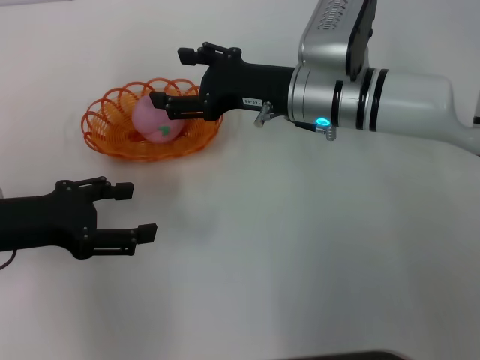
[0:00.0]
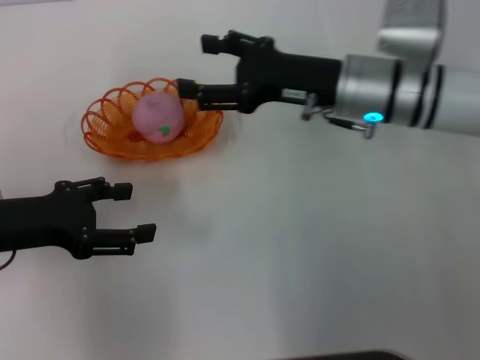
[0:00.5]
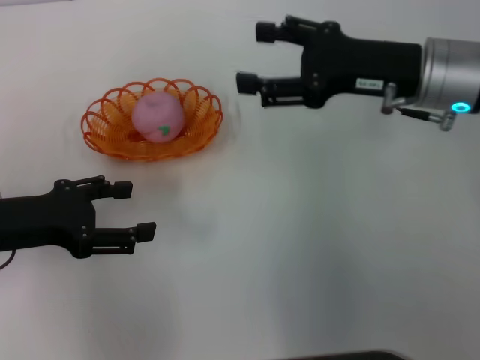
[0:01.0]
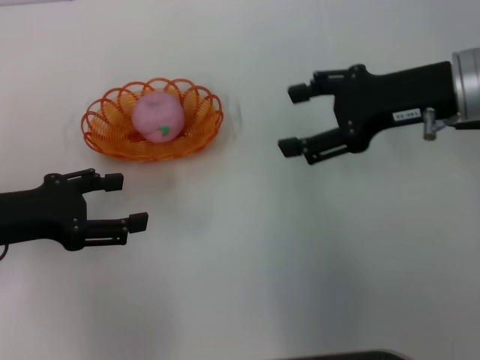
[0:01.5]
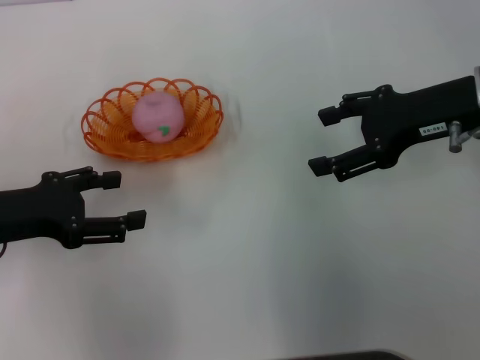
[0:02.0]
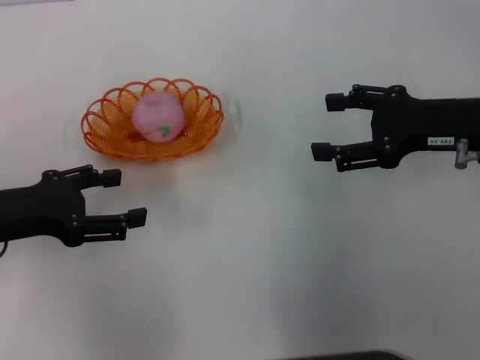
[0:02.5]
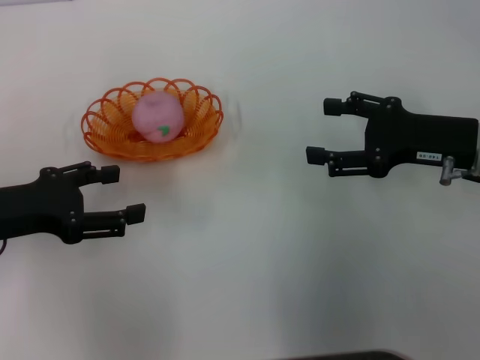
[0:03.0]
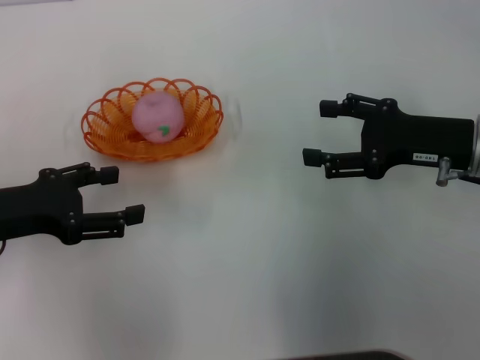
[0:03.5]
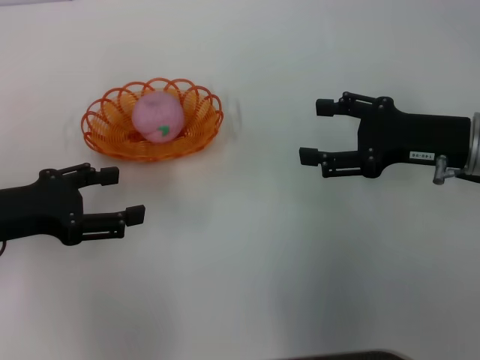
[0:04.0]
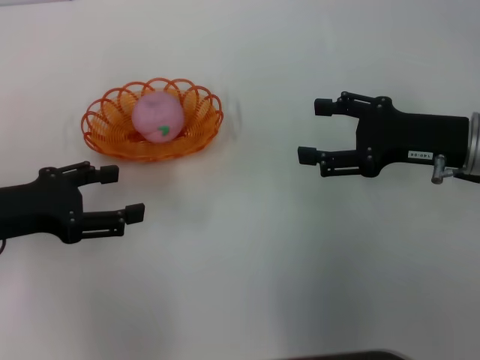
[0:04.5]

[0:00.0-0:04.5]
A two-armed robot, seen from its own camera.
0:00.0 to 0:02.0: The right gripper is displaced to the right and upward by about 15 cm.
0:02.0 to 0:04.5: The right gripper travels downward by roughly 5 cm.

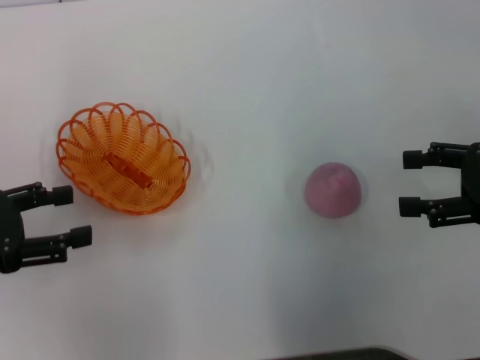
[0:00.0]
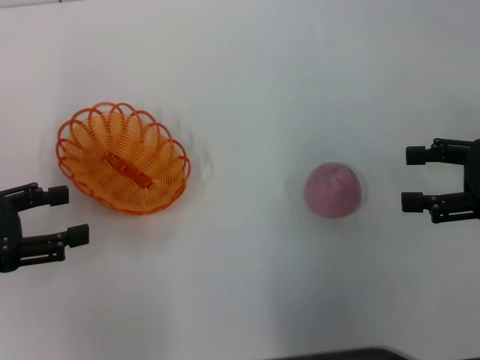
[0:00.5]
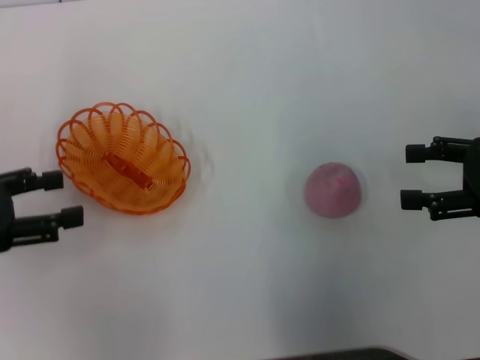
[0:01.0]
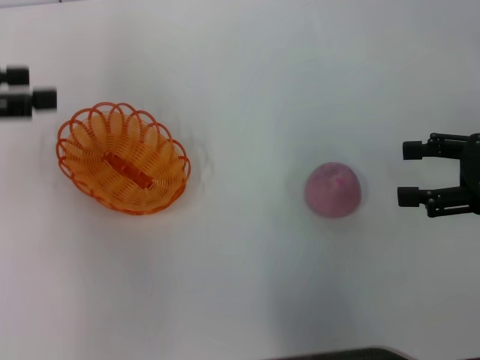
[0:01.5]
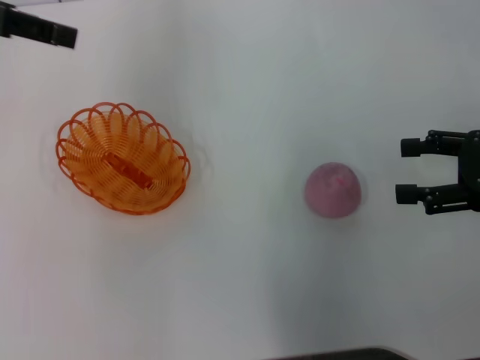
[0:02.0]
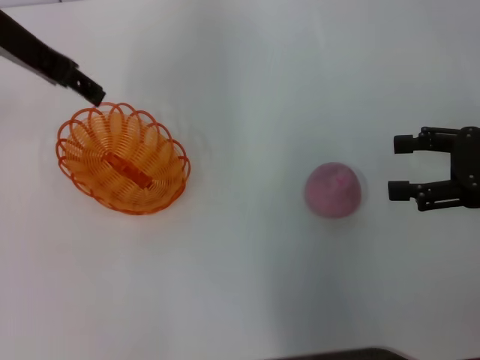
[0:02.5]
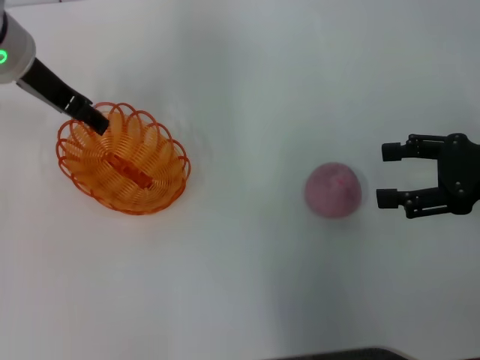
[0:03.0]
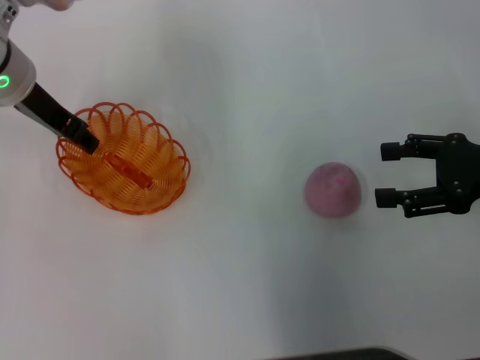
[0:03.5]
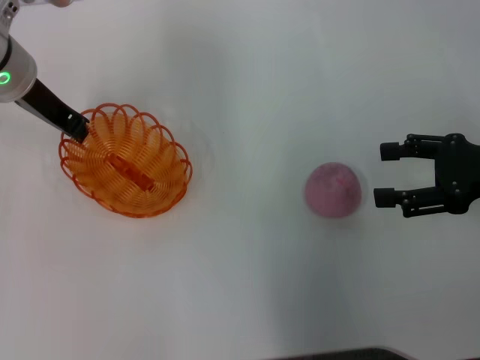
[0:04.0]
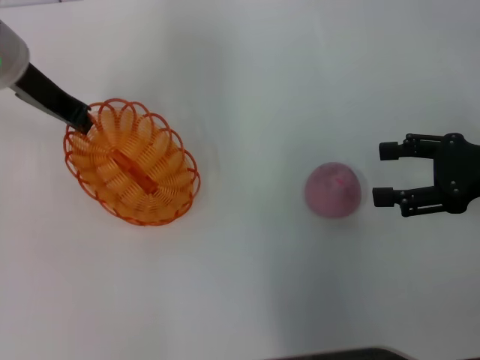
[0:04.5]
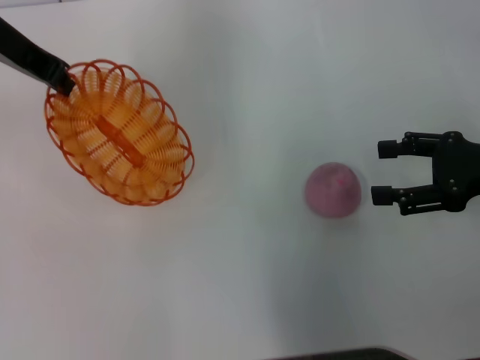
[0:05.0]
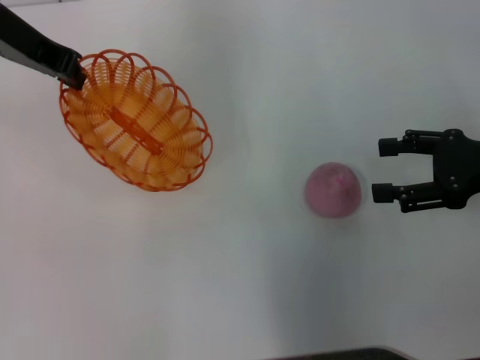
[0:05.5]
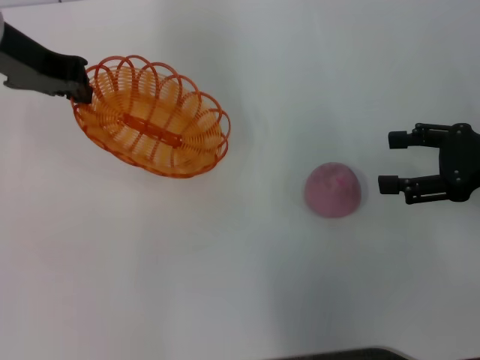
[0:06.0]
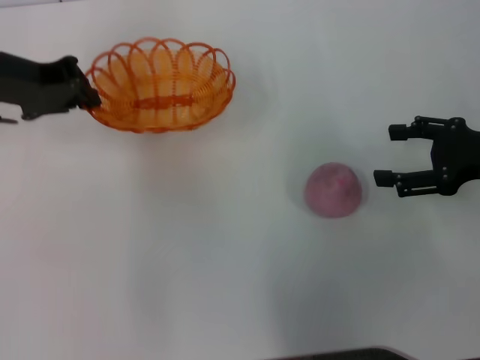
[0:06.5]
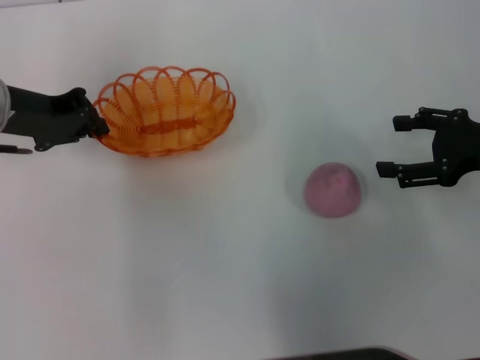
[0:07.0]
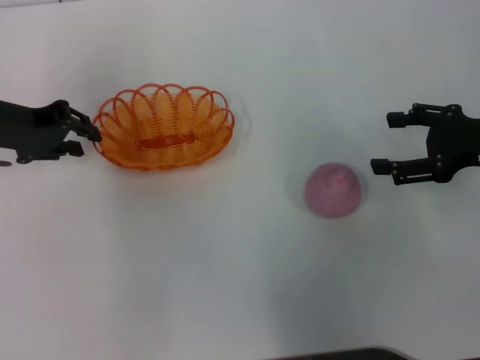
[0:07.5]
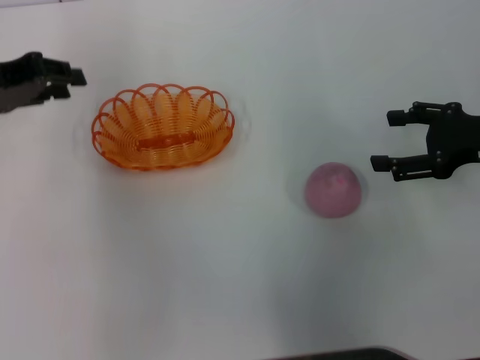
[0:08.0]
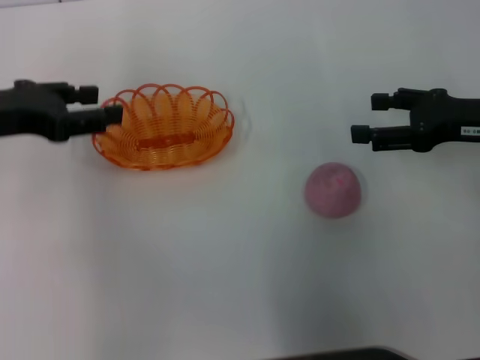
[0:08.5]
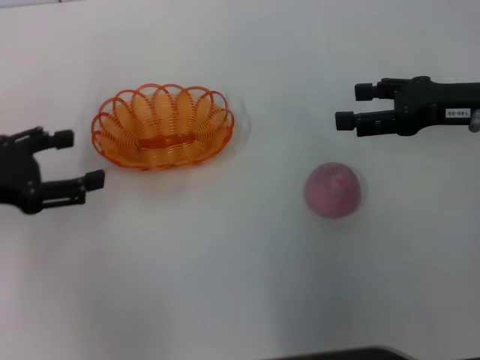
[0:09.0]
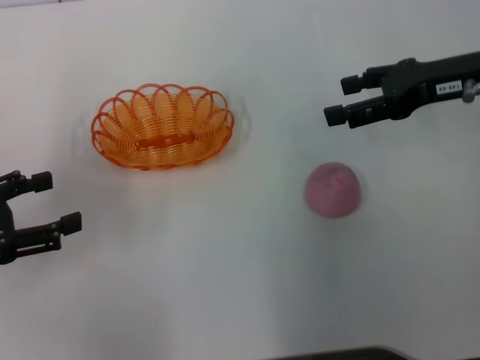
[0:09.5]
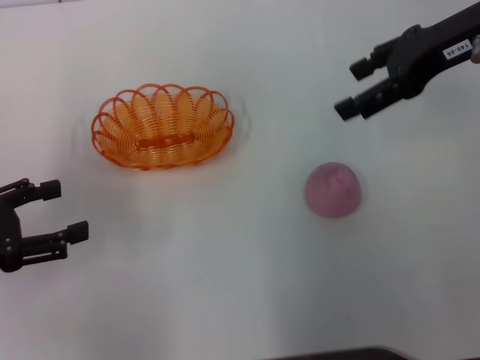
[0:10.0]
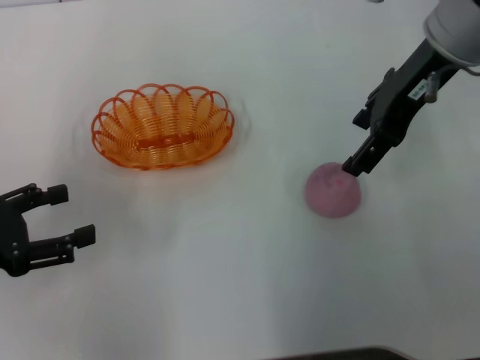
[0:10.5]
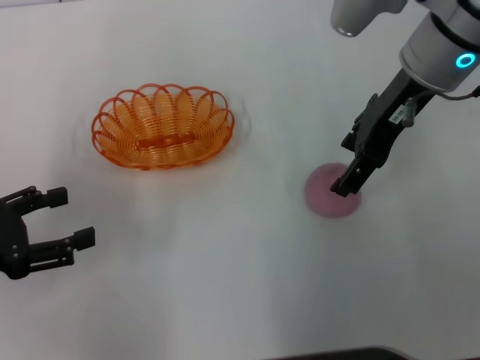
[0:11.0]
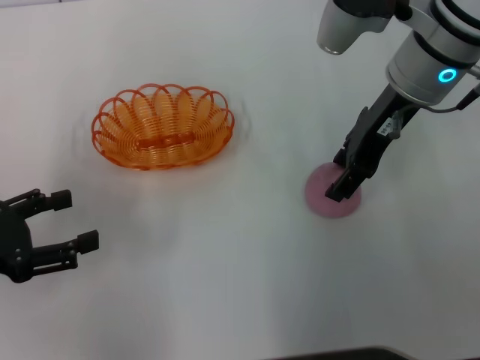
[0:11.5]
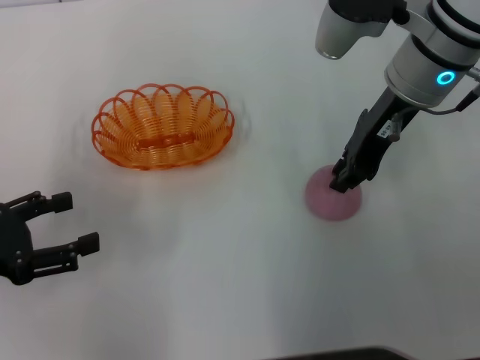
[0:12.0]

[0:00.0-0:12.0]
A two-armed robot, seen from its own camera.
Step, 0:00.0 to 0:05.0: Pick up the basket with the left gripper.
Step, 0:05.5 to 0:08.5: Place the basket in the center of view with the left gripper.
0:00.0 to 0:02.0: The left gripper heads upward and forward, covering roughly 20 cm.
0:02.0 to 0:04.0: The left gripper heads downward and to the right, covering about 15 cm, and closes.
0:04.0 to 0:06.0: The left gripper is displaced upward by approximately 5 cm, and closes.
0:06.0 to 0:08.0: The left gripper is displaced to the left and downward by some 10 cm.
0:08.0 to 0:10.0: The right gripper heads upward, to the left and forward, covering some 15 cm, while the left gripper is displaced backward and downward by approximately 15 cm, and opens up.
0:10.0 to 0:12.0: The right gripper heads to the left and downward, covering roughly 10 cm, and closes up.

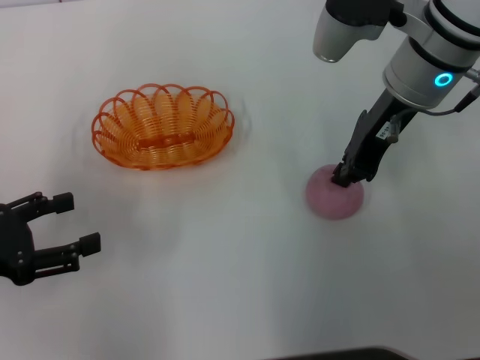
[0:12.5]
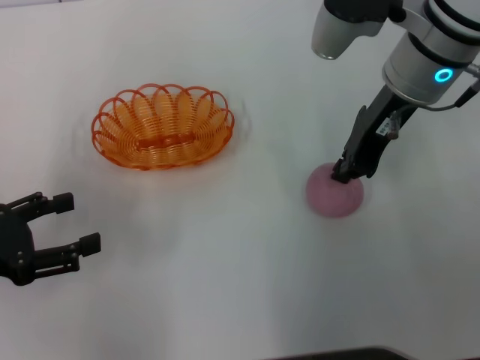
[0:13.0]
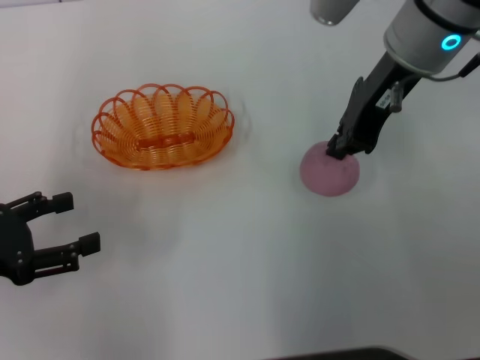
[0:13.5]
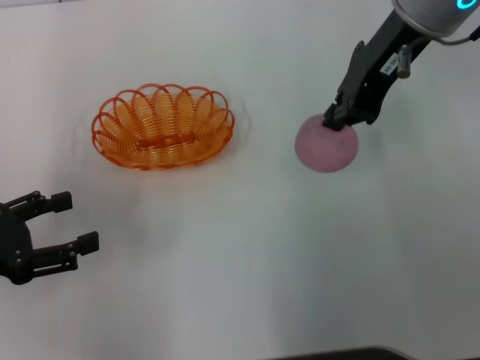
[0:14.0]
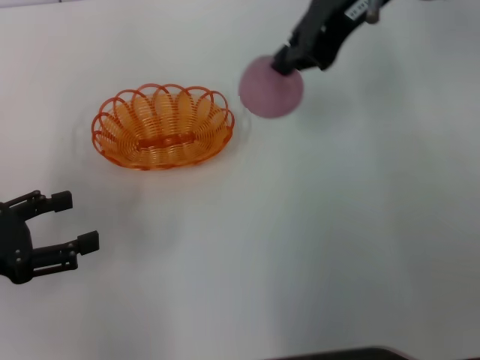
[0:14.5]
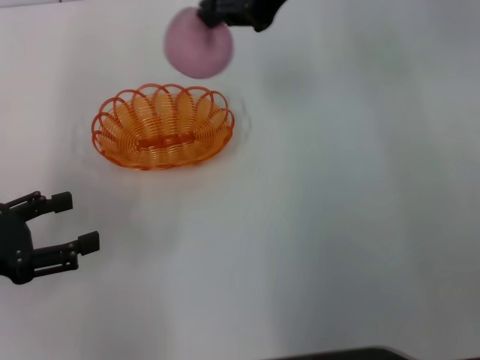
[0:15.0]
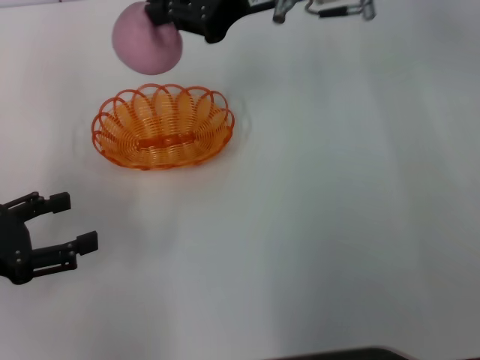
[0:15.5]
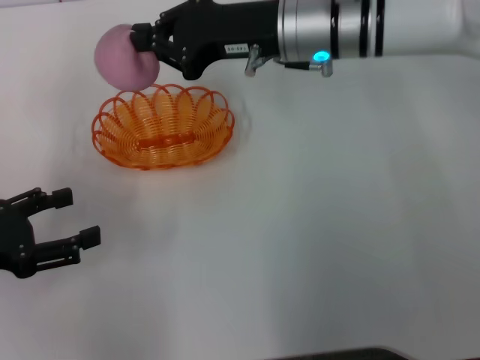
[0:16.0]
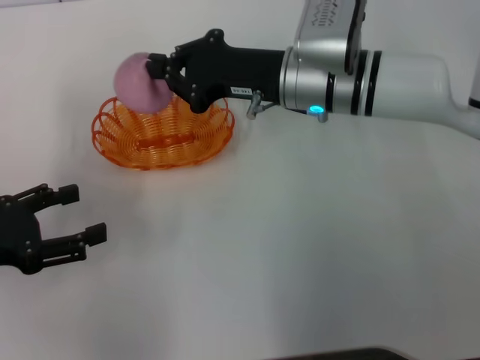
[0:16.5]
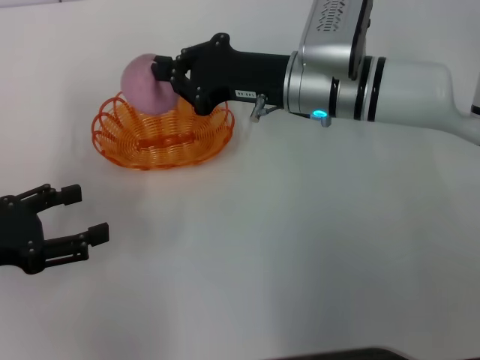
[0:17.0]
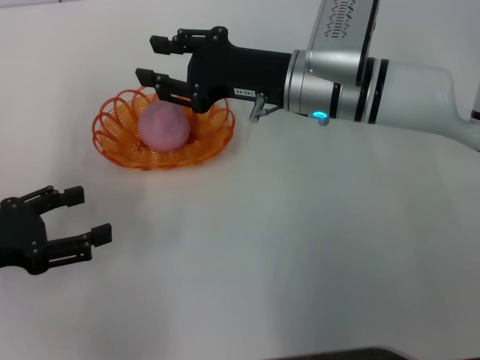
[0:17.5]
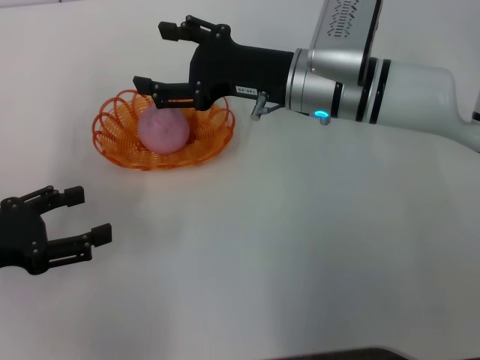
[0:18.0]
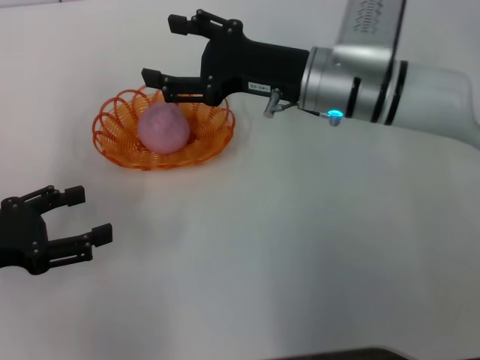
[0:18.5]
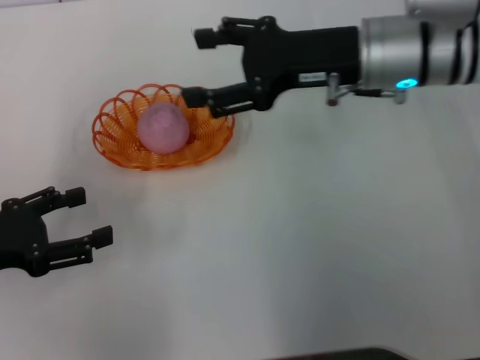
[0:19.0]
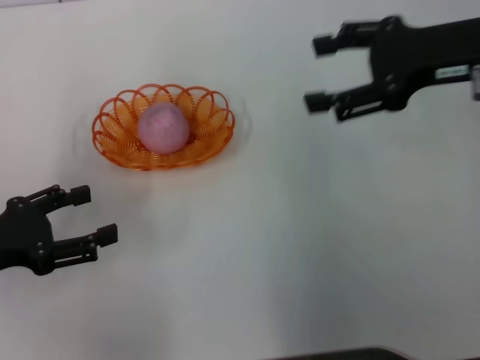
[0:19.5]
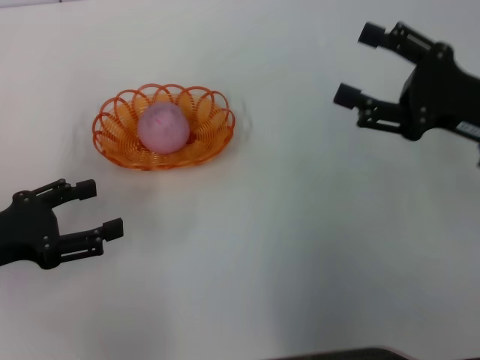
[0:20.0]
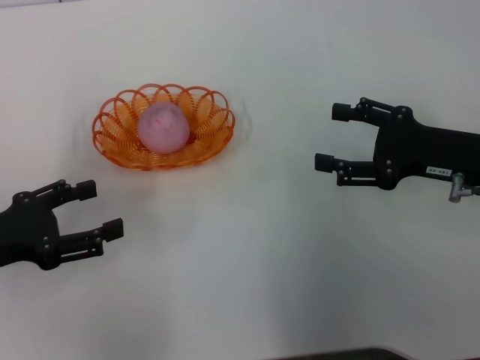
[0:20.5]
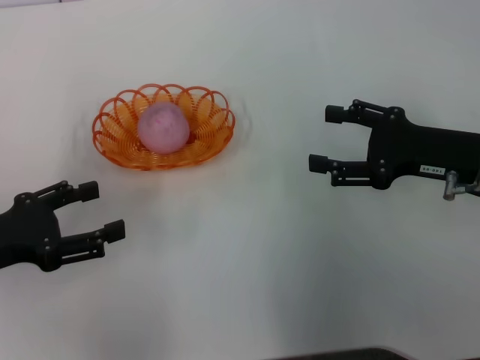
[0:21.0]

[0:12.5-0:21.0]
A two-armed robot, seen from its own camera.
Step, 0:14.5 to 0:18.5: Place the peach into the basket with the right gripper.
0:12.5 to 0:14.5: The right gripper heads upward, covering some 10 cm.
0:14.5 to 0:16.5: The right gripper moves downward, roughly 15 cm.
0:16.5 to 0:19.0: The right gripper travels upward and to the right by some 10 cm, and opens its fingers.
0:19.0 to 0:21.0: The right gripper shifts some 15 cm to the right, backward and downward.
